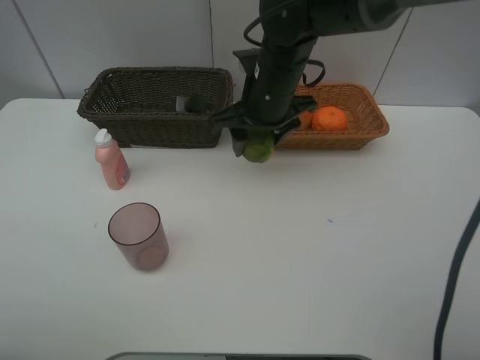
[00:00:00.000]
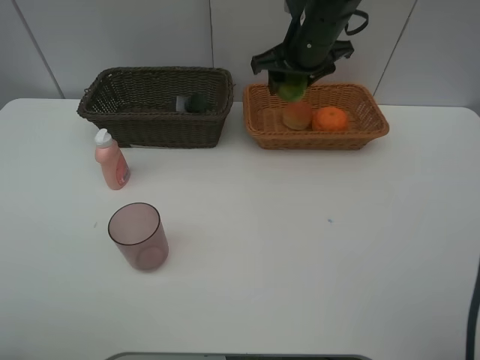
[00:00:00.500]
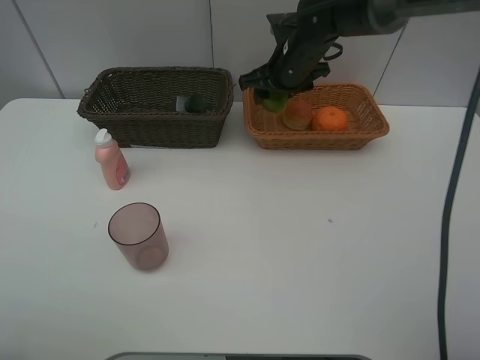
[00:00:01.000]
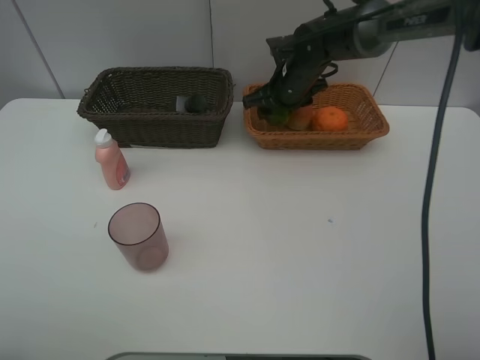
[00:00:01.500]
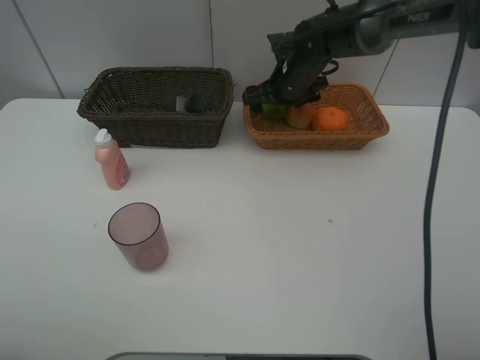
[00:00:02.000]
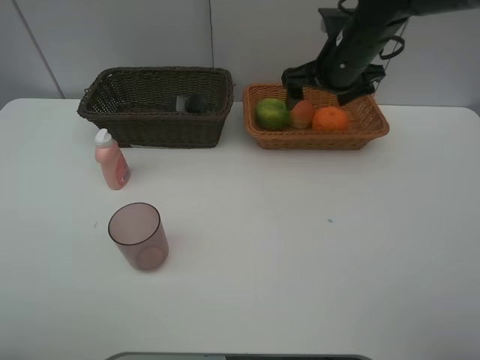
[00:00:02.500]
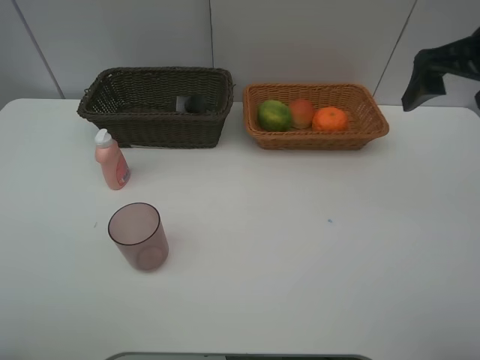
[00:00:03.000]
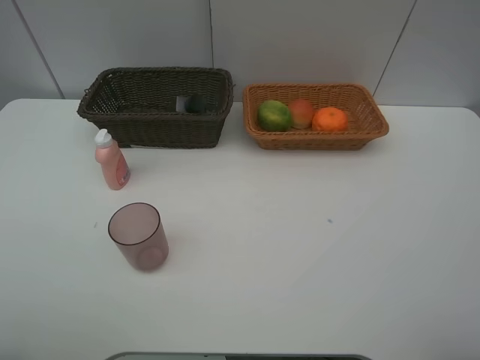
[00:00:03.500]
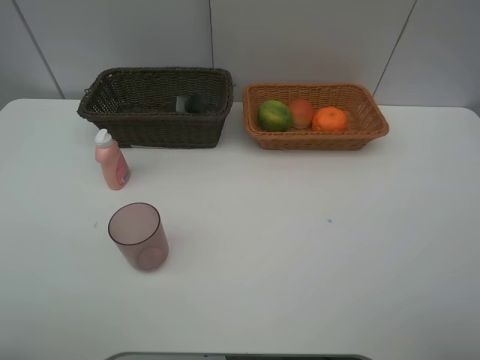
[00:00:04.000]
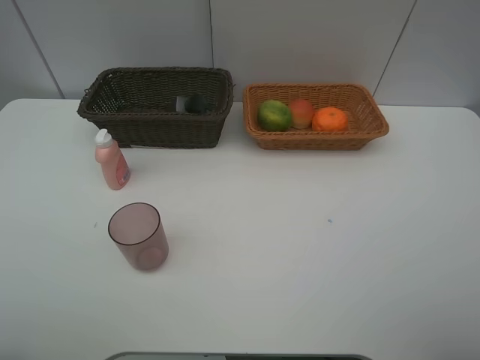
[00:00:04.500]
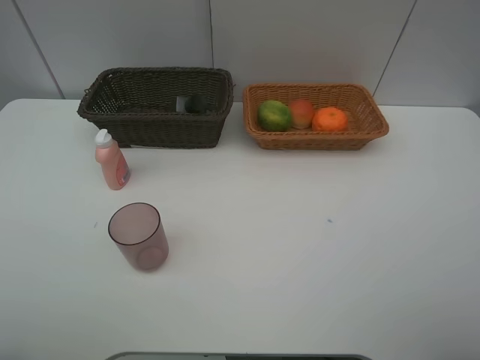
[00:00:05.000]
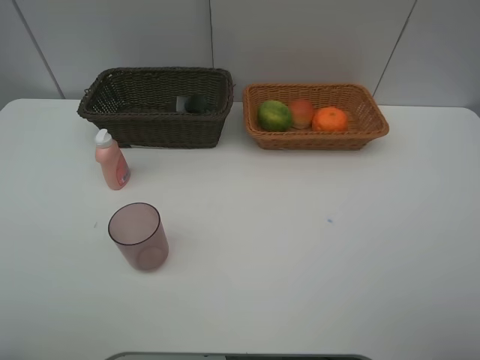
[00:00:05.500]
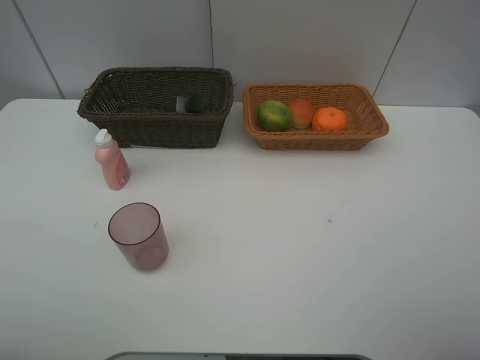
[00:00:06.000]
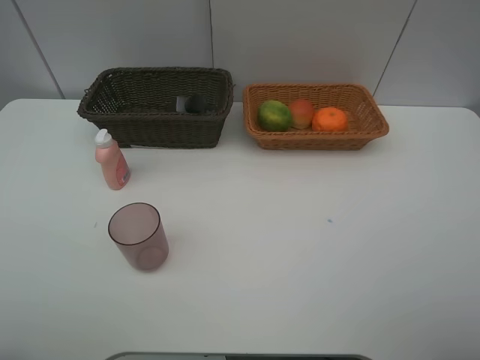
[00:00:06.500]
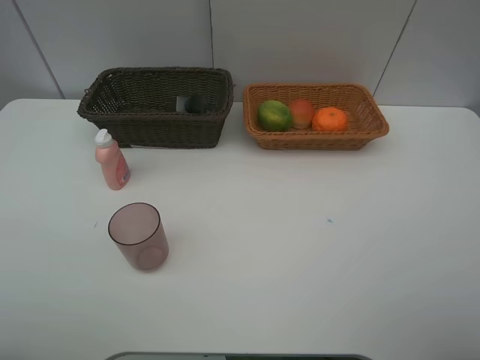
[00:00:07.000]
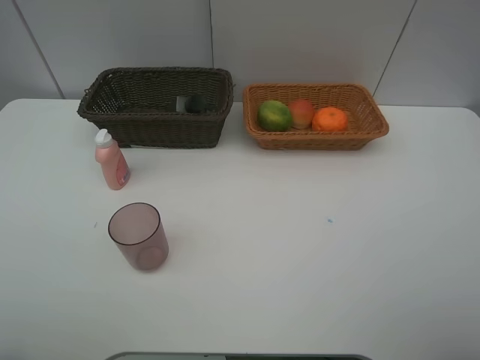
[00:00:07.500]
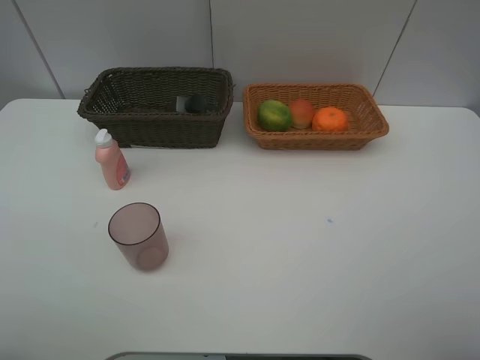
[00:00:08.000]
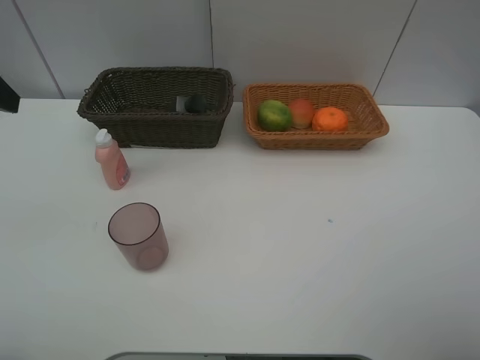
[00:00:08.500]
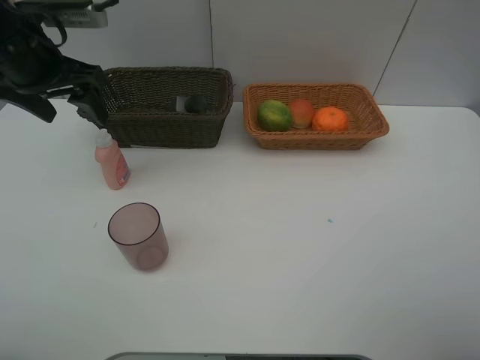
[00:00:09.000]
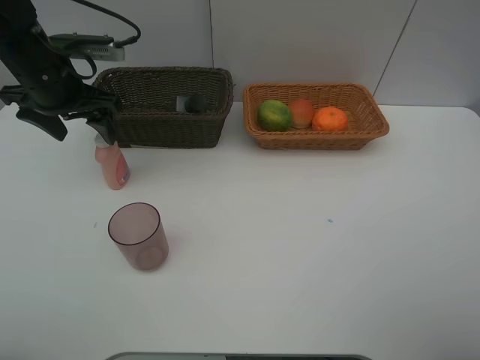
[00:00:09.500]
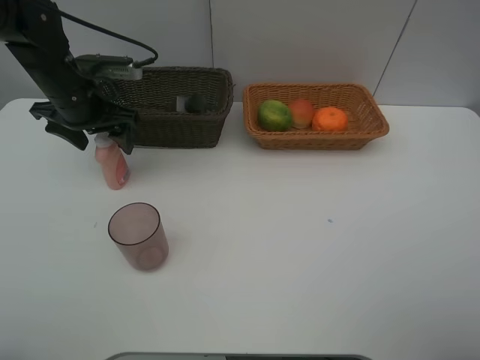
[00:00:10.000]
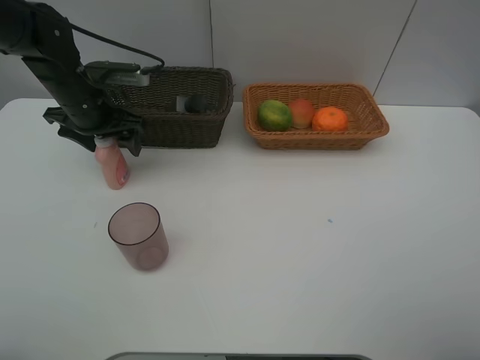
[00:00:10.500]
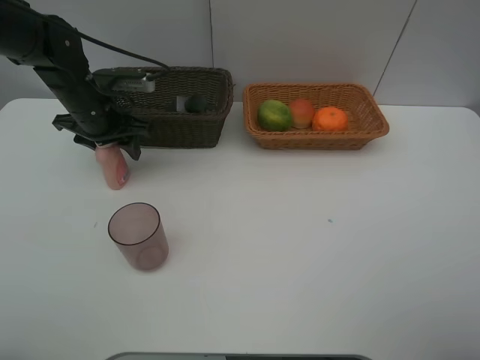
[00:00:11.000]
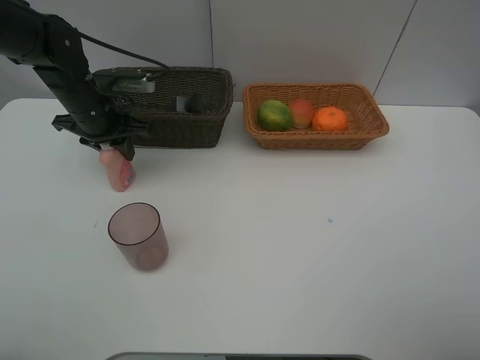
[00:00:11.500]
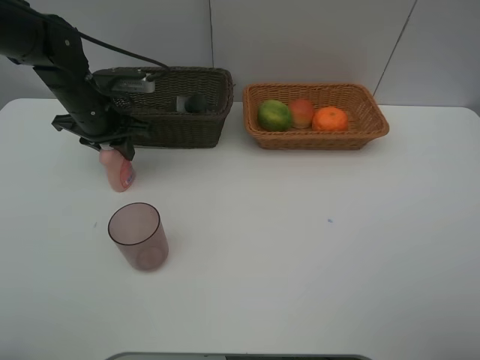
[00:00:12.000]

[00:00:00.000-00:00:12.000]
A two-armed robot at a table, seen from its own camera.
Task of the whole recording: place multiple objects separately in different baskets.
00:00:00.000 to 00:00:02.000: The right gripper goes approximately 10 cm forward, and opens its fingers.
00:00:02.000 to 00:00:04.000: The right gripper travels backward and to the right by approximately 50 cm.
00:00:08.000 to 00:00:10.000: The left gripper goes about 35 cm forward.
00:00:10.000 to 00:00:12.000: The left gripper closes up.

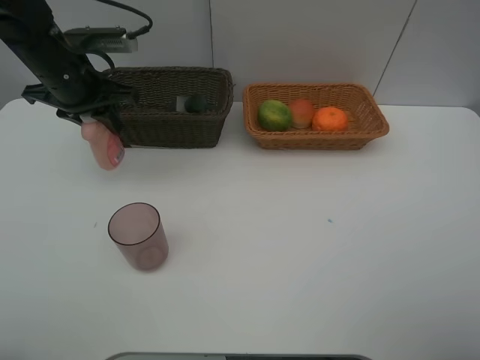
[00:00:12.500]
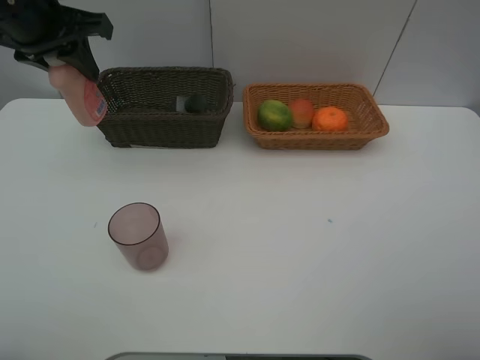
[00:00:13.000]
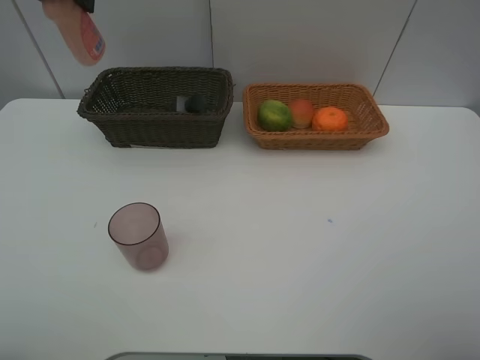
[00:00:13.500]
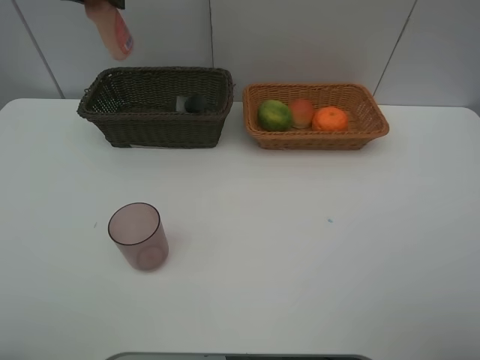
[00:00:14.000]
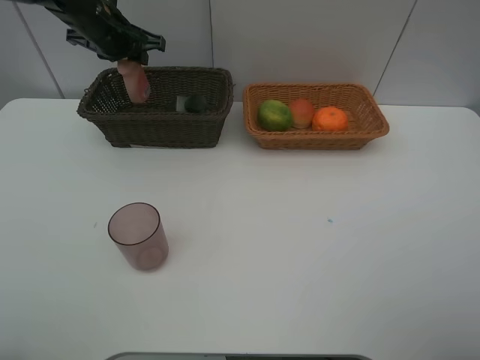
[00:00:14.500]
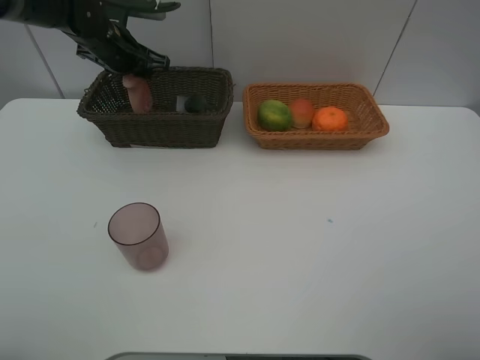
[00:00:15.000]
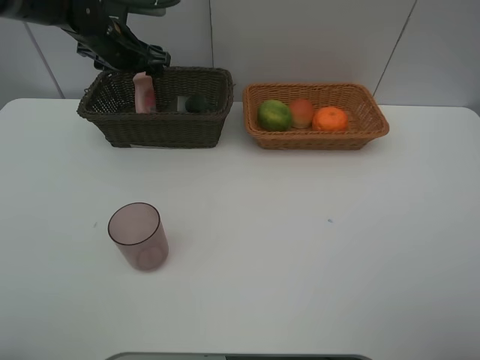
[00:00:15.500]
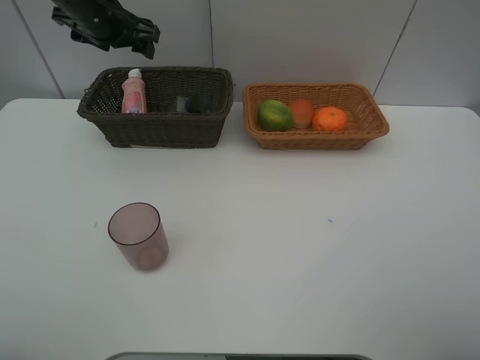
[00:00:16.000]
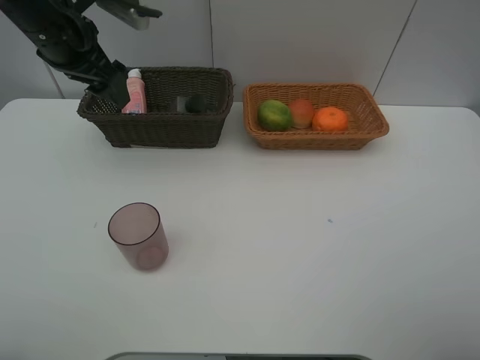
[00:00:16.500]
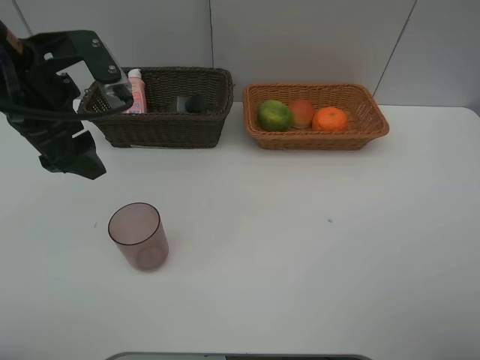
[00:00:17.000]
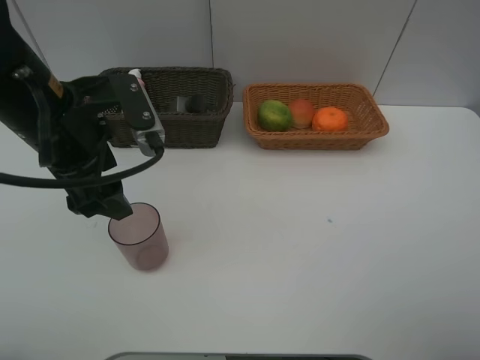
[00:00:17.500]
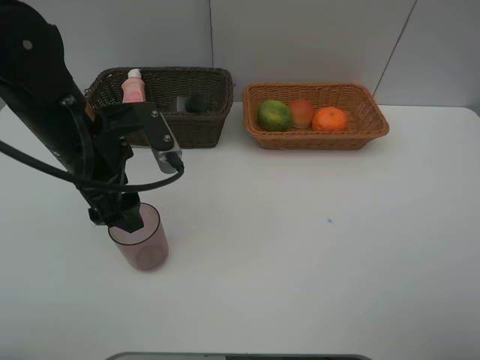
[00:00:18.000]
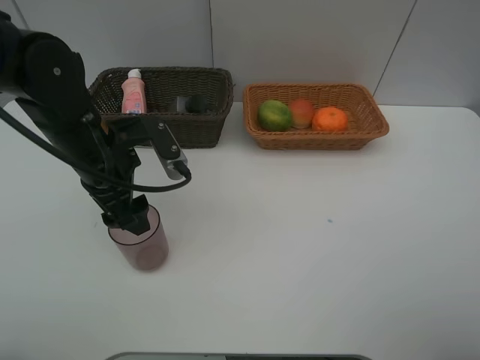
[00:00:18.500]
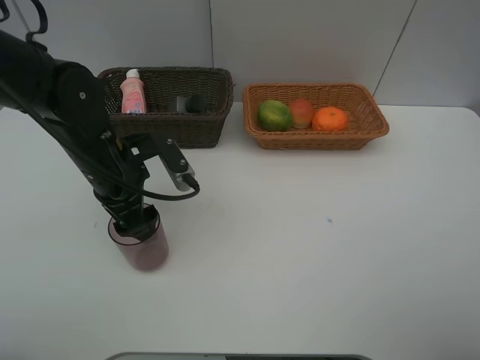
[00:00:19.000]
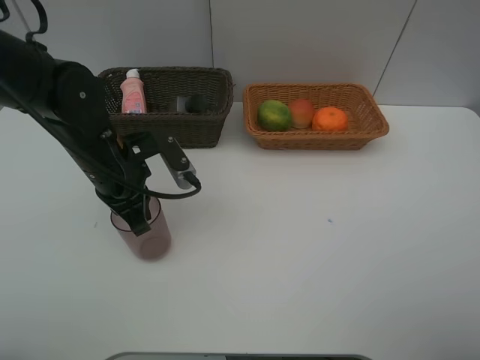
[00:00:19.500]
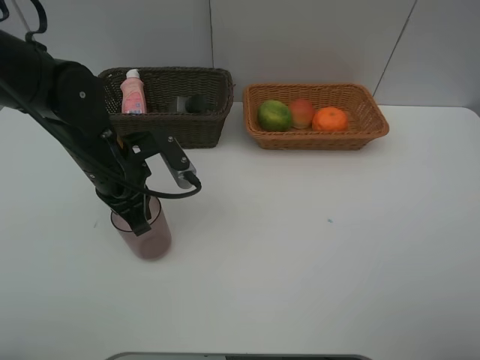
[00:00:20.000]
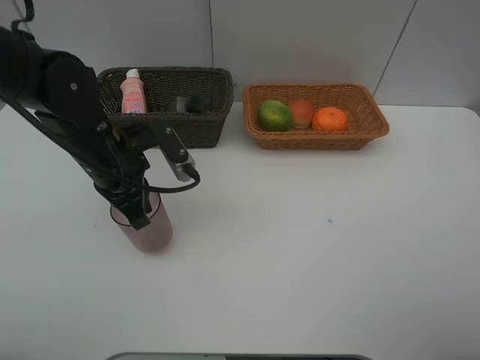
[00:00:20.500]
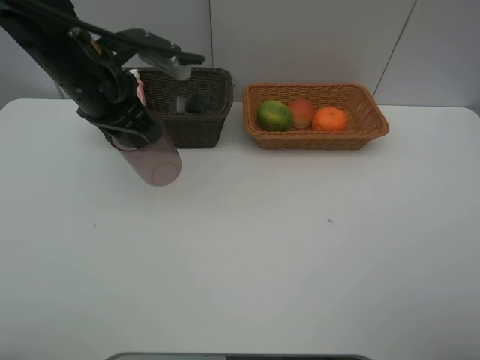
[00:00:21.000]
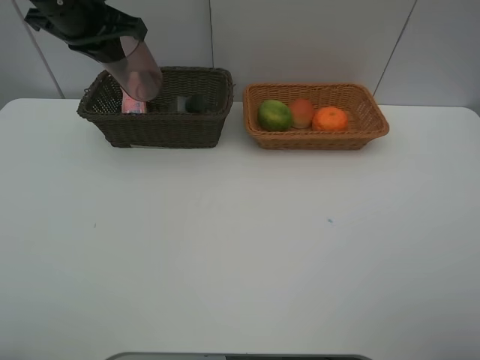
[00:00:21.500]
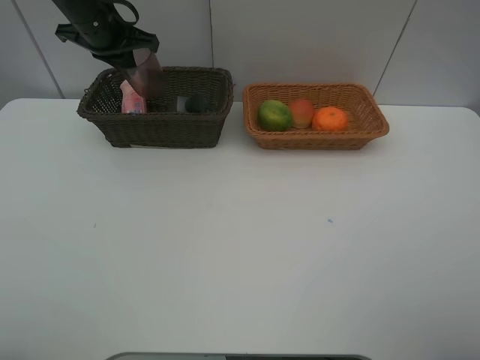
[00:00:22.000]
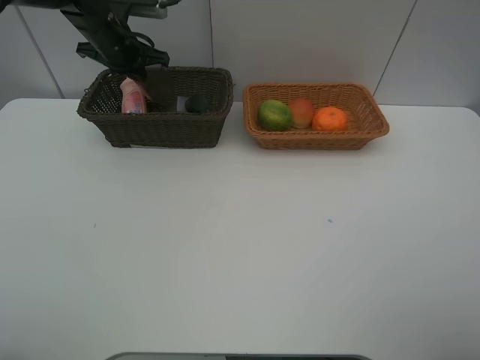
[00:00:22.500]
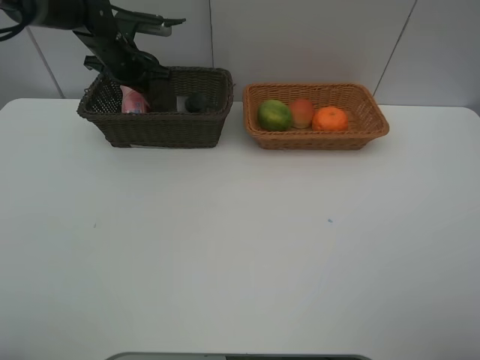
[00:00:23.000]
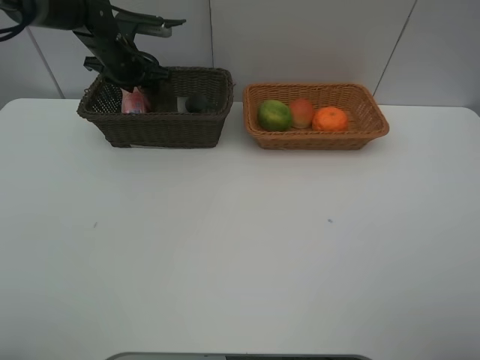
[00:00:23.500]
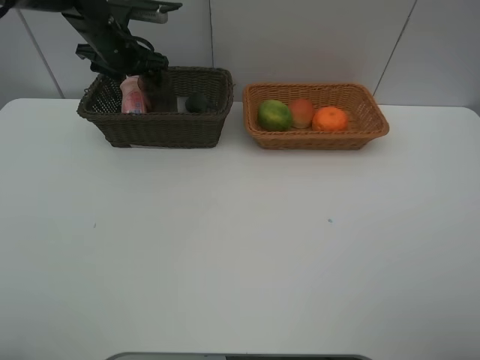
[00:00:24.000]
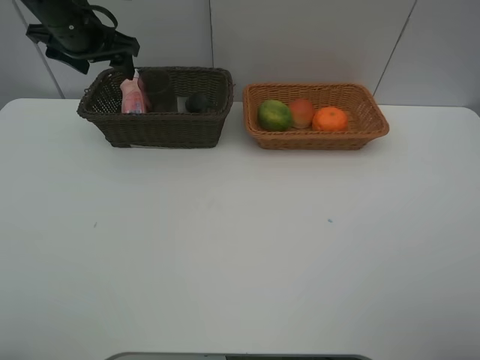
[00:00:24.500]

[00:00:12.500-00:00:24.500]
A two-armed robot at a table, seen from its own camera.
Task of the whole recording: place multiple objects separately in different baskets.
00:00:12.500 to 00:00:14.500: The left gripper goes some 10 cm forward, and goes upward and returns, roughly 15 cm each way.
00:00:14.500 to 00:00:16.500: The left gripper moves backward and upward, some 15 cm, and opens its fingers.
00:00:16.500 to 00:00:18.500: The left gripper goes roughly 15 cm downward, backward and to the right.
00:00:18.500 to 00:00:20.500: The left gripper closes its fingers.
00:00:20.500 to 00:00:22.500: The left gripper heads forward, covering some 20 cm.
00:00:22.500 to 00:00:24.500: The left gripper shifts some 10 cm backward and upward, and opens up.

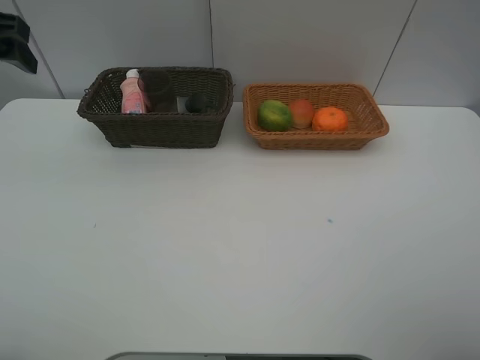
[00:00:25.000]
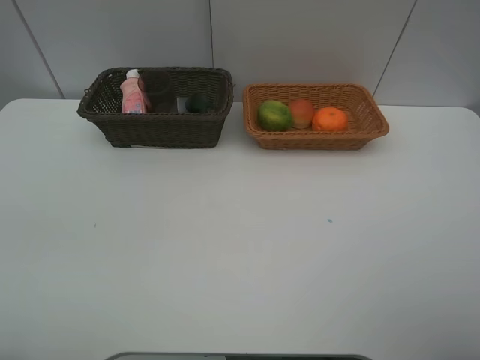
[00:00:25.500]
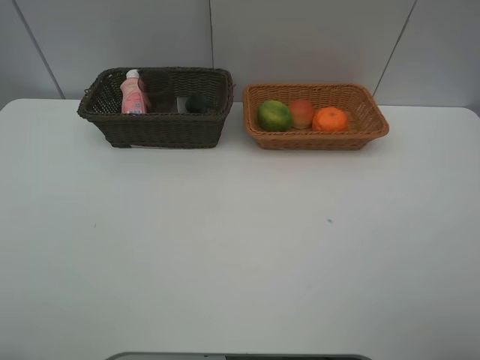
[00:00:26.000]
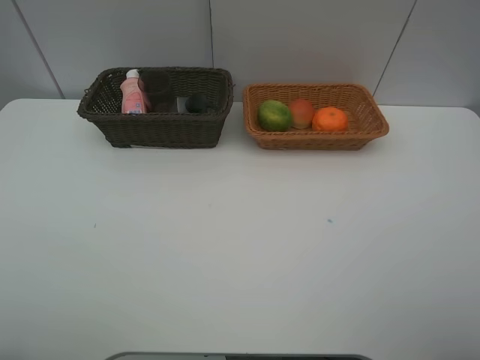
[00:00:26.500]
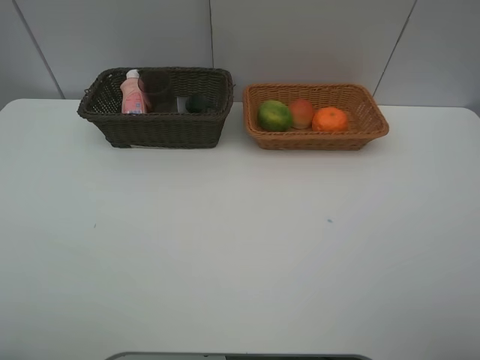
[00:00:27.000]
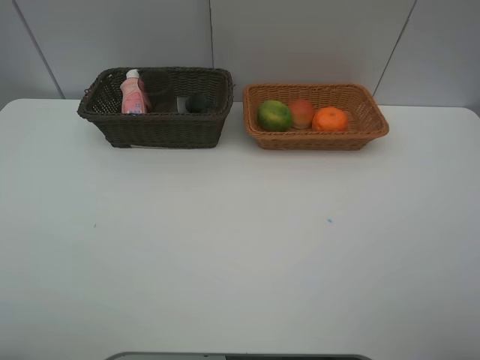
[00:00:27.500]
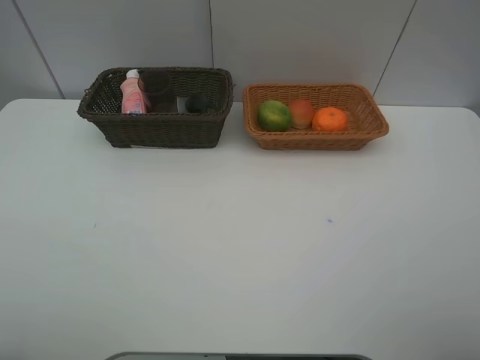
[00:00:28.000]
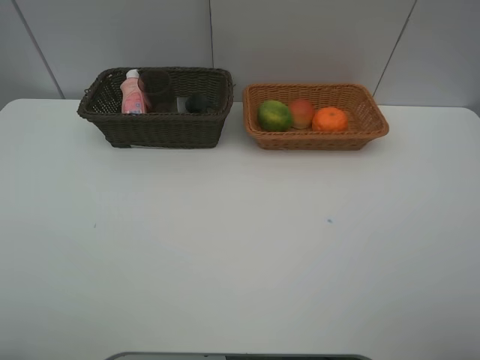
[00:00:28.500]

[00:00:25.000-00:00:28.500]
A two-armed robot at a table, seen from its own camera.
Task of the whole recording: place multiple objects separately in different baskets.
00:00:25.000 to 00:00:27.000: The left gripper travels backward by about 30 cm.
00:00:27.000 to 00:00:28.500: Neither gripper changes place.
